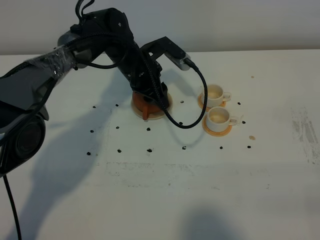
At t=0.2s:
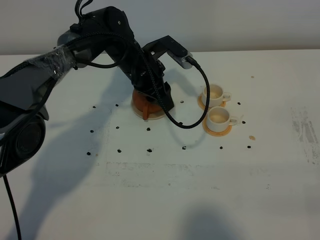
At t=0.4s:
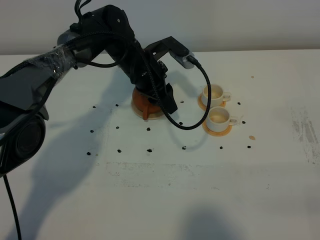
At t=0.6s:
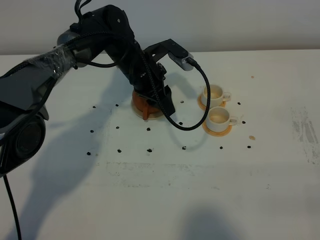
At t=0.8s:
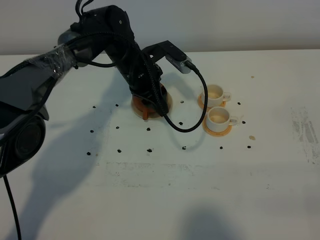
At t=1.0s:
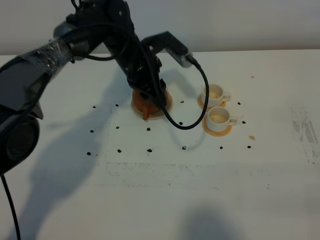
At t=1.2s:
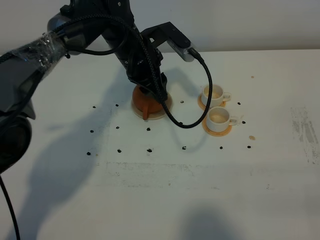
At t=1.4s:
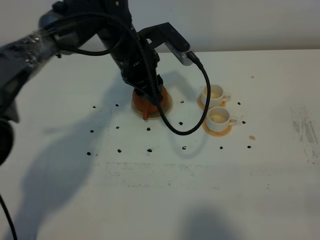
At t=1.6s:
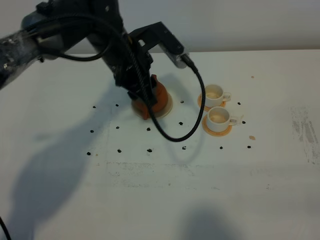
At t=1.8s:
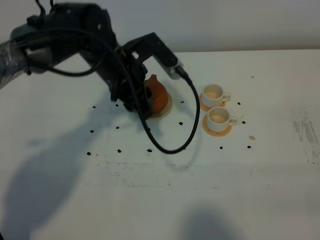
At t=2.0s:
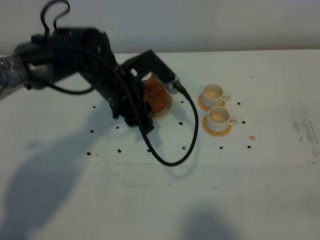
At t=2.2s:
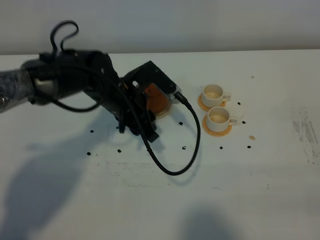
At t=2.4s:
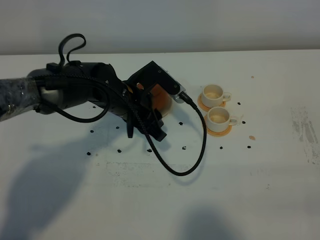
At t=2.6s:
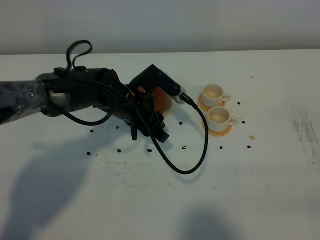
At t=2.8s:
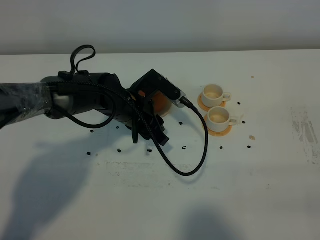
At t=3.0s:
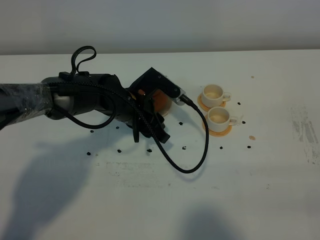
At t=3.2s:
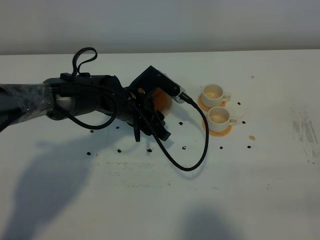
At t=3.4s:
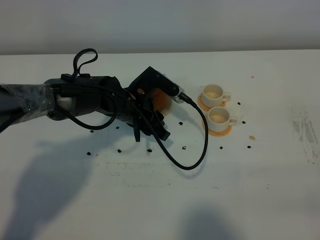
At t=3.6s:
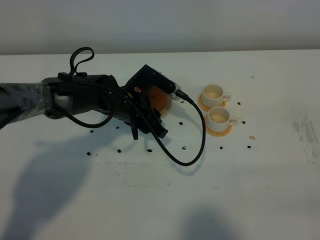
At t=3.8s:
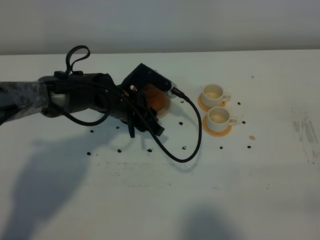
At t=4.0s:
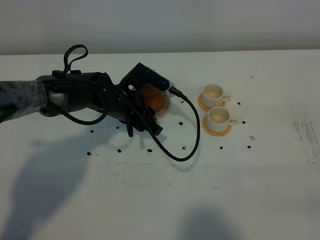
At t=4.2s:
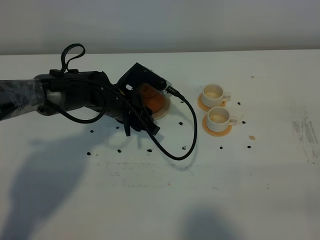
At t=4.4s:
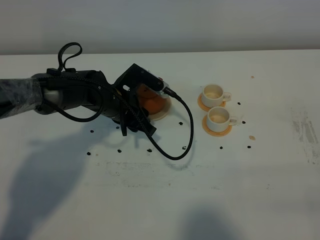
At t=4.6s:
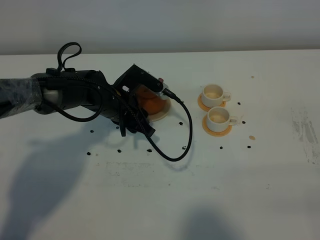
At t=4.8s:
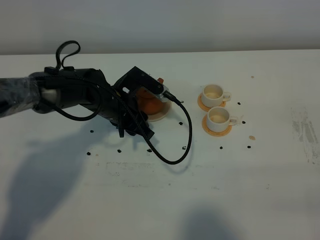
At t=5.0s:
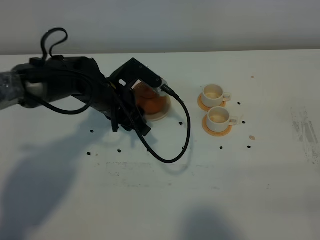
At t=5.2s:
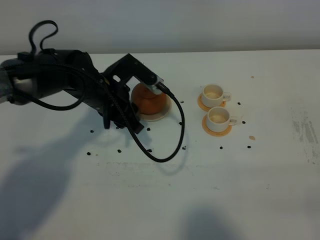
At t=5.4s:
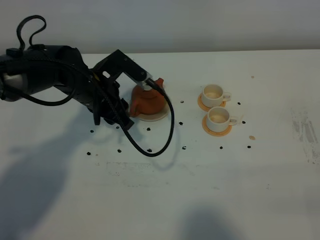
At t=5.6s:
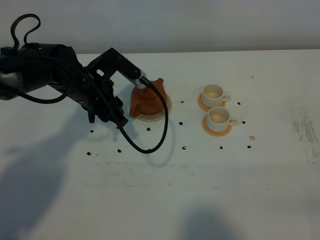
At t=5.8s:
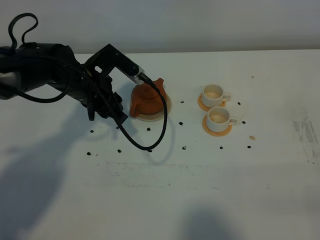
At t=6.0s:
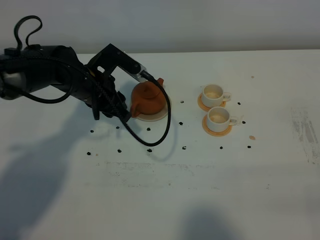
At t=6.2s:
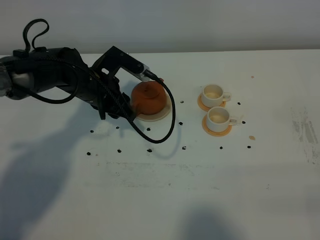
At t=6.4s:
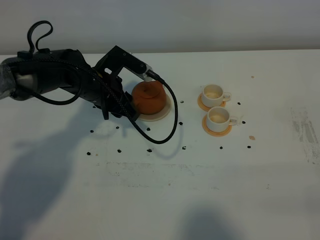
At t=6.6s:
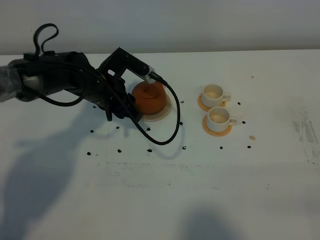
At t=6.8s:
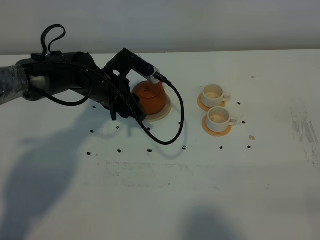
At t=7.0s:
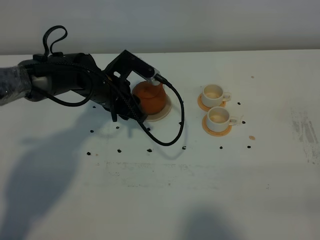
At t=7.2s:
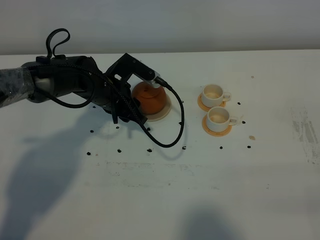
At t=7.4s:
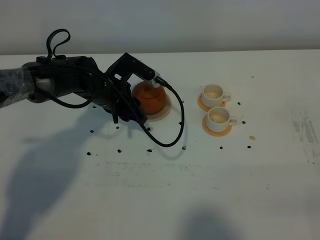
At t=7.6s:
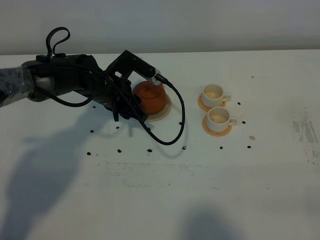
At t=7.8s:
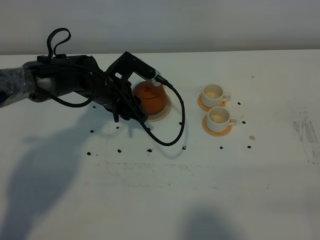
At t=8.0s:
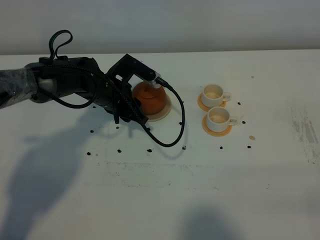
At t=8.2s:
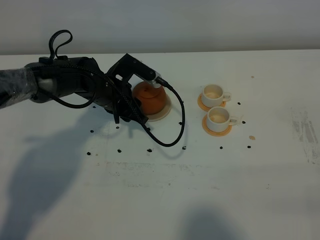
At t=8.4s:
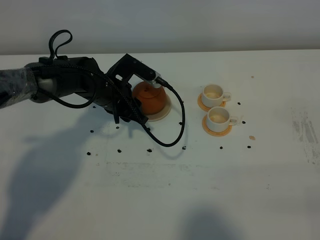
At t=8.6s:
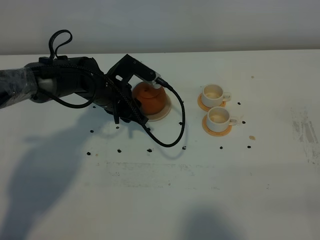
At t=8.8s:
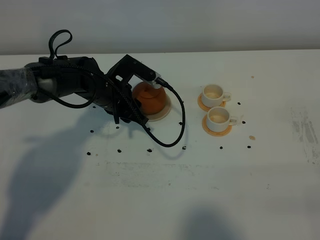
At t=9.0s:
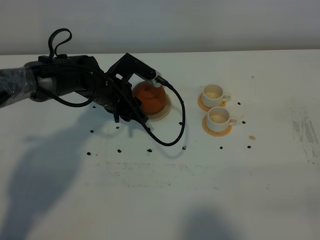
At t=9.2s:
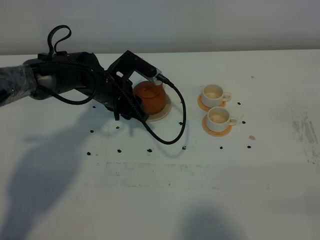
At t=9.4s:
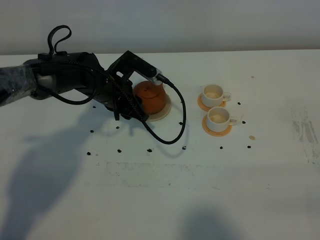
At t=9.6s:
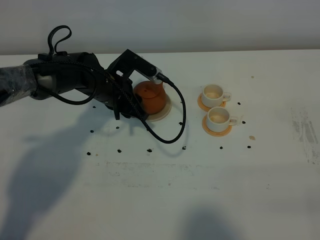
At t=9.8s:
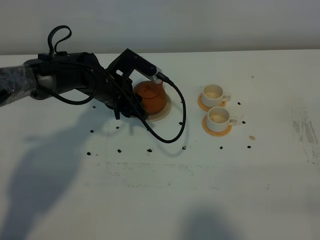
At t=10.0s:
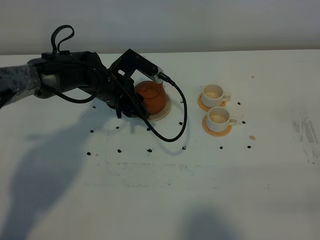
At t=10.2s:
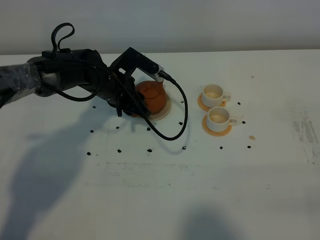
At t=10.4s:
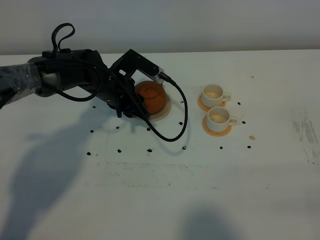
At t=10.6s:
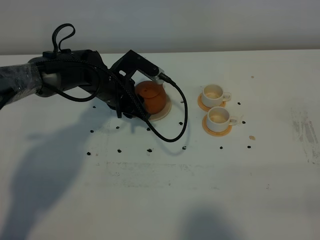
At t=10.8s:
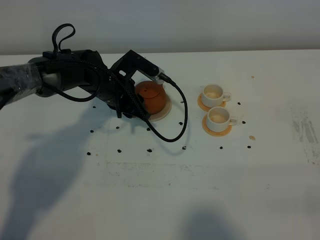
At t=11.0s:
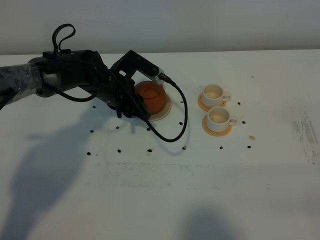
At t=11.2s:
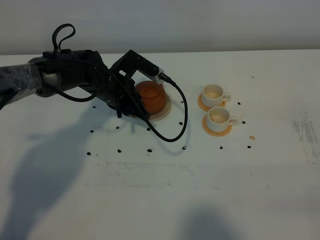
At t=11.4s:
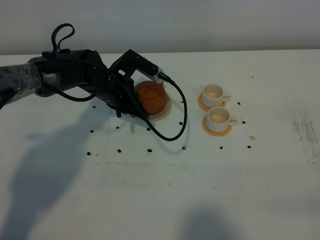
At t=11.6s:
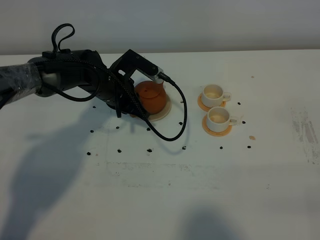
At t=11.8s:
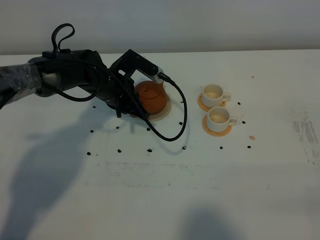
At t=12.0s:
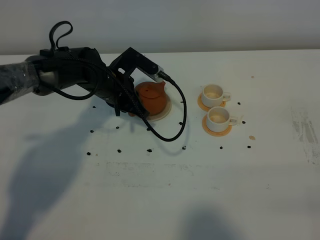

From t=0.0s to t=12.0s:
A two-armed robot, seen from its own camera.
Task of the whole recording: grasp the brown teapot and pour the tea into the two white teacups one by one, put the brown teapot back in its original place.
From t=0.0s to t=1.6s: The left gripper moves upward and backward, approximately 10 cm.
From t=1.6s to t=3.0s: The left gripper is displaced downward by some 10 cm.
From t=3.0s to t=4.4s: The grippers make only small movements.
From t=4.4s to t=6.0s: The left gripper changes place by approximately 5 cm.
From t=6.0s to t=7.6s: The grippers move only a little.
From t=7.6s to t=10.4s: Both grippers stay put.
From t=10.4s to t=12.0s: The left gripper closes its fingers.

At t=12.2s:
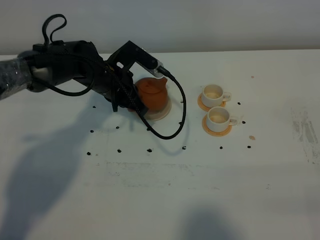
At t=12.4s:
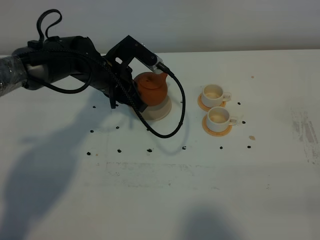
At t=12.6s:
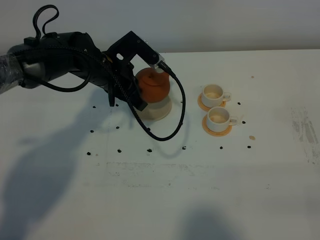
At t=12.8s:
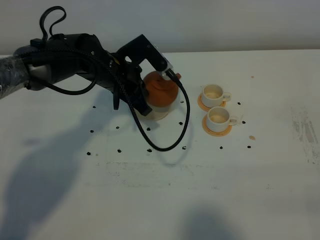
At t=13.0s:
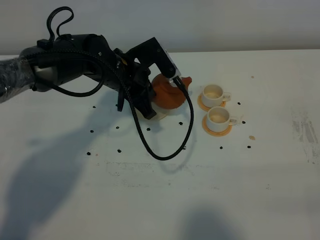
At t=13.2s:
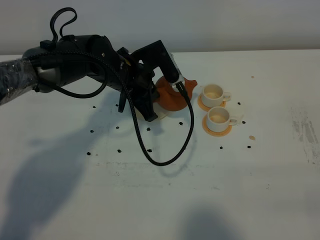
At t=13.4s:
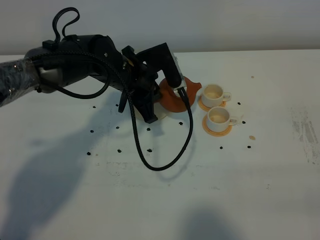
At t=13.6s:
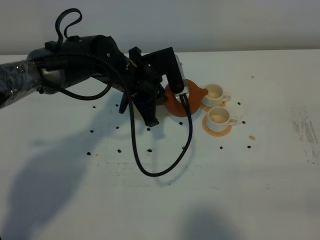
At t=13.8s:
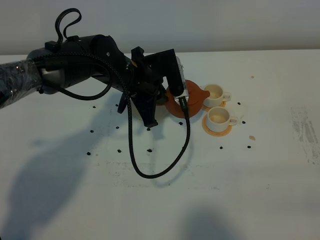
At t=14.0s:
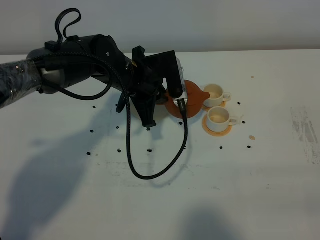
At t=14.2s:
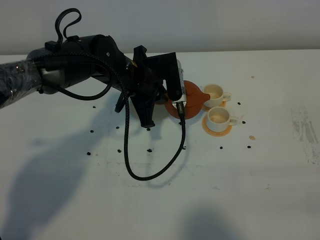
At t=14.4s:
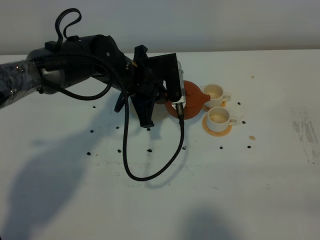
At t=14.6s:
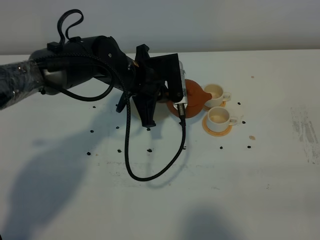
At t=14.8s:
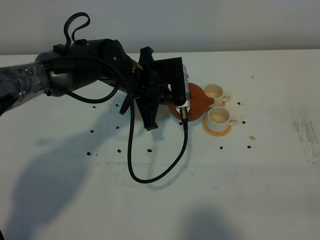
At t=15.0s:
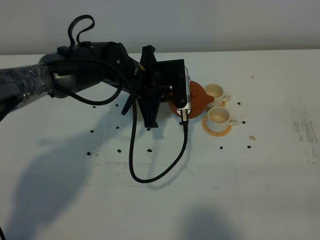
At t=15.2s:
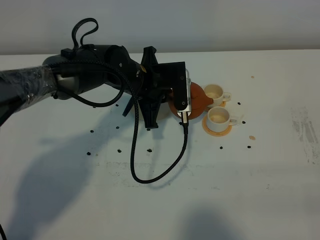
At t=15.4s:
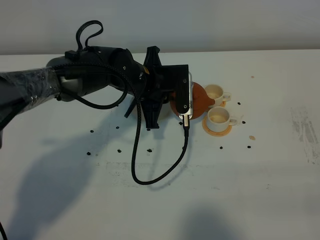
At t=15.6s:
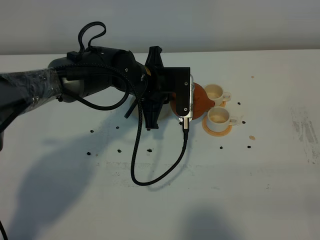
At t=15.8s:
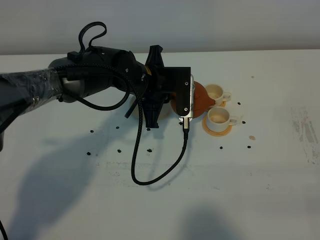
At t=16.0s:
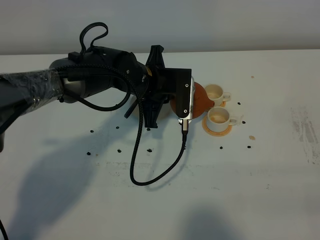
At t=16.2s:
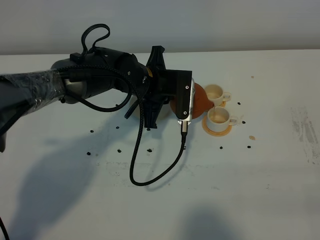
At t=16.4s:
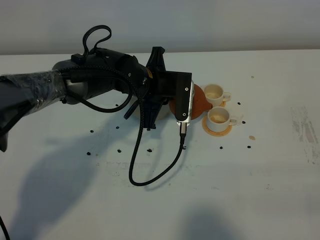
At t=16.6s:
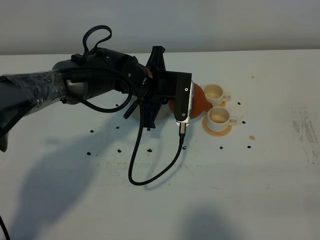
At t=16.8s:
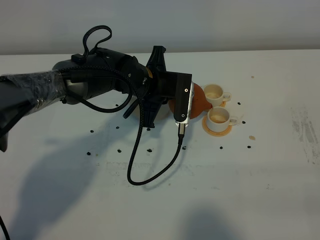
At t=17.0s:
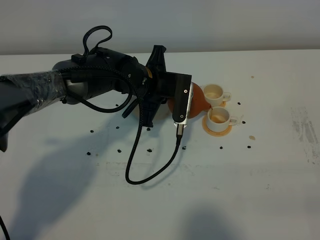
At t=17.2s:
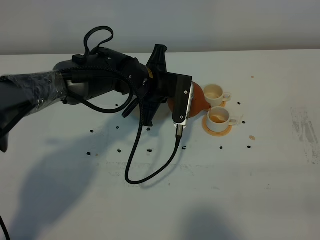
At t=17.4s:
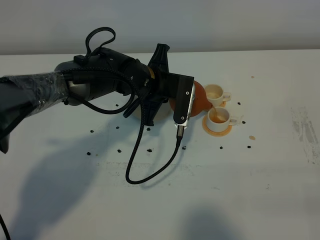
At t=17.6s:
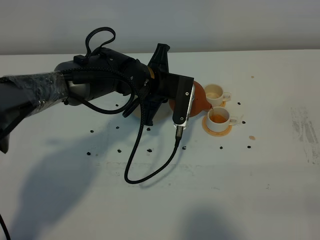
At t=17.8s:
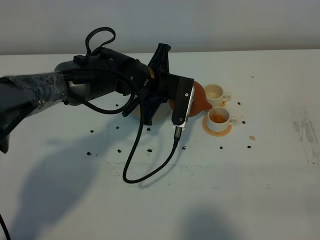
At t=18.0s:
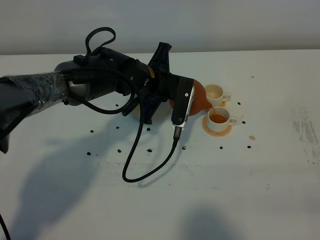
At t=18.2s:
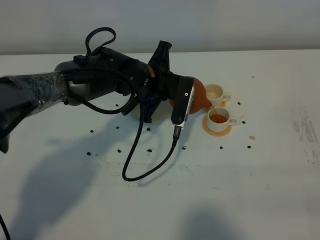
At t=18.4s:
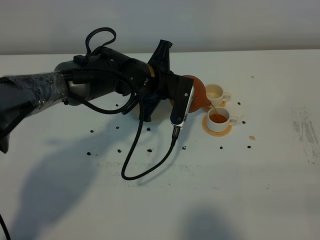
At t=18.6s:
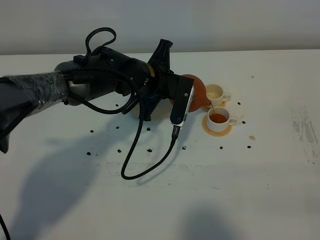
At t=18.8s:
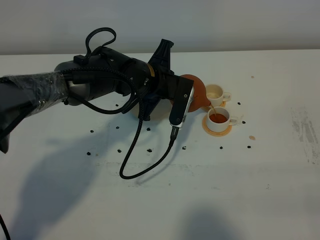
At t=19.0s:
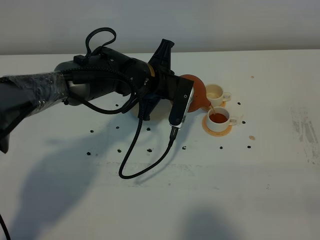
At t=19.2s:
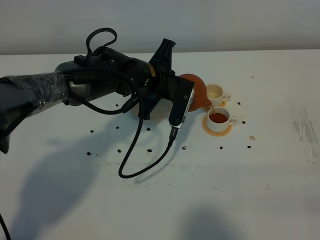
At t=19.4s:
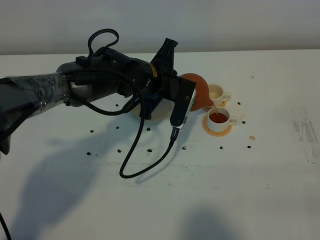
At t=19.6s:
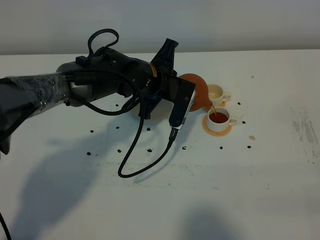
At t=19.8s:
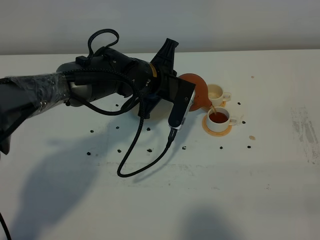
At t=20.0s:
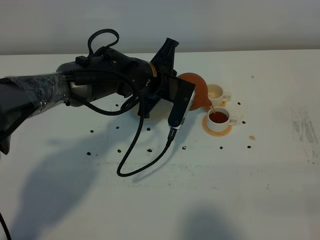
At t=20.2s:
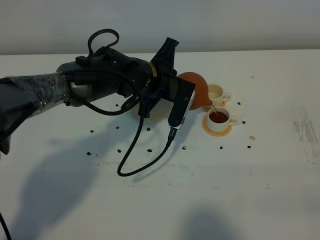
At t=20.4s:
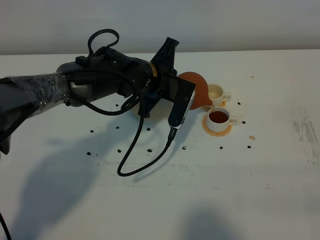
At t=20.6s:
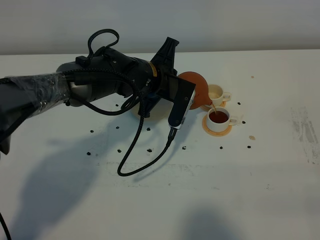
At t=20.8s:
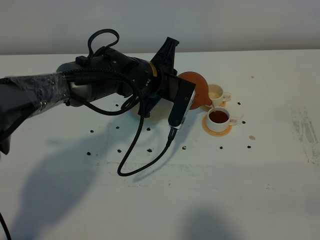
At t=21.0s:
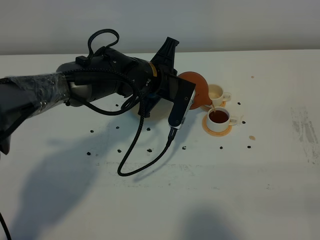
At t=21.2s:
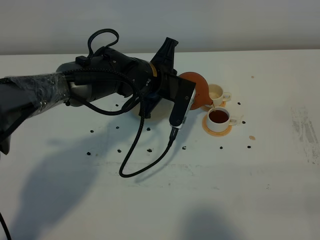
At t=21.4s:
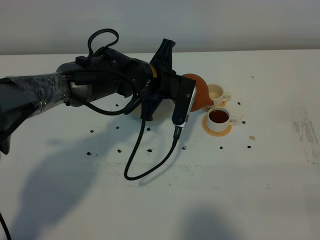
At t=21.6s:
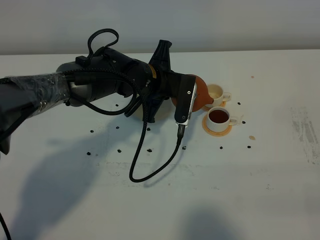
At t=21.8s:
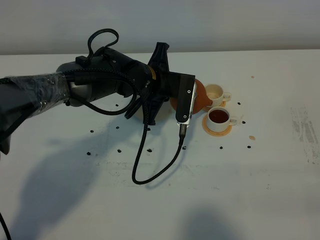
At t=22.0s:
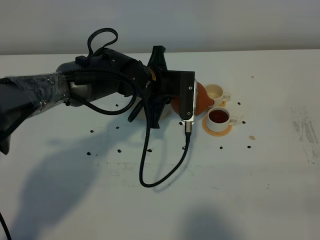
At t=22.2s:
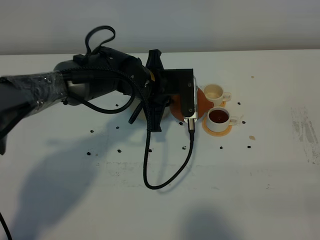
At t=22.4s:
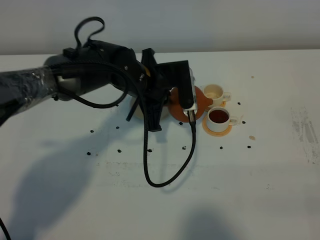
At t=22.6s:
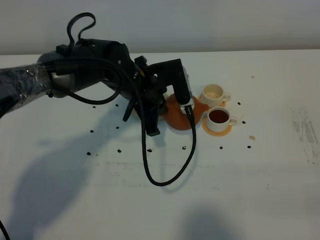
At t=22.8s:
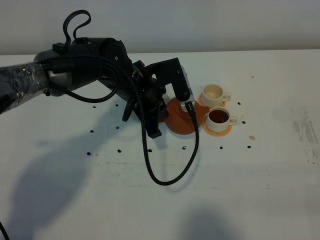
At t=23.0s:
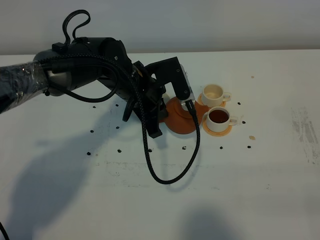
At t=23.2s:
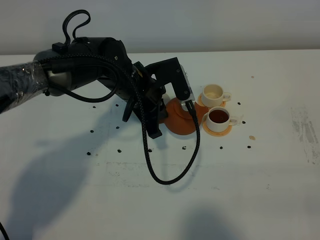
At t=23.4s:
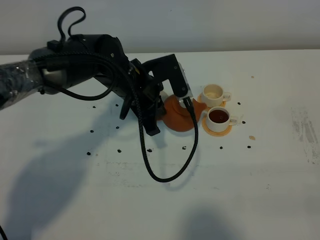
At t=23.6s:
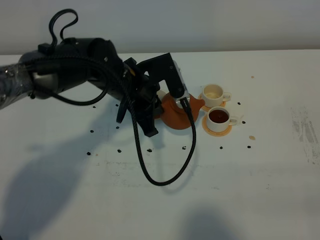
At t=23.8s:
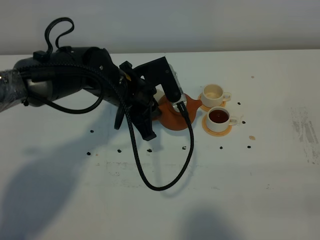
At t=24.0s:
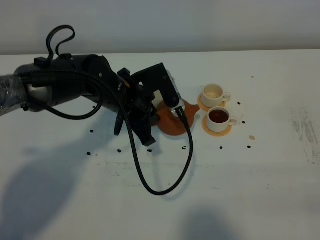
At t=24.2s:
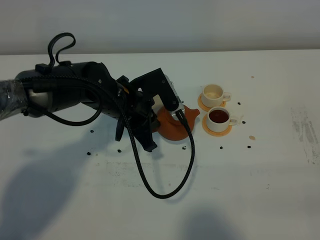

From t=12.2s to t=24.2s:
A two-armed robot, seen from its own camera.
Task of the whole recording: grasp the brown teapot and pour the tea into the two white teacups one by one, put the brown teapot back in its original place.
Step, from t=12.4s to t=22.8s: Pour tea into the teacup with the left gripper.
From t=12.2s to t=13.8s: The left gripper moves to the right, approximately 5 cm.
From t=13.8s to t=15.2s: The grippers move only a little.
From t=15.2s to t=16.6s: The grippers stay close to where they were, moving slightly.
From t=16.6s to t=18.2s: The grippers stay close to where they were, moving slightly.
From t=18.2s to t=19.8s: The grippers make only small movements.
From t=19.8s to t=21.2s: Neither gripper changes place.
From t=22.6s to t=24.2s: The grippers move only a little.
